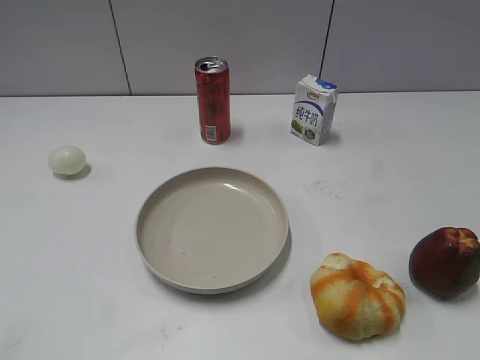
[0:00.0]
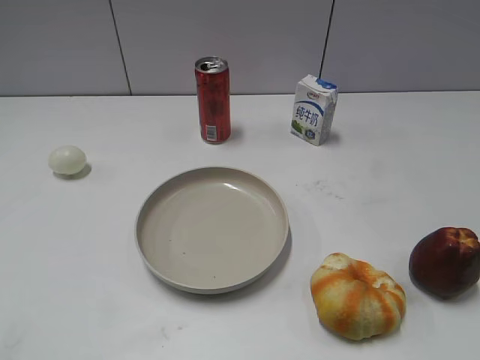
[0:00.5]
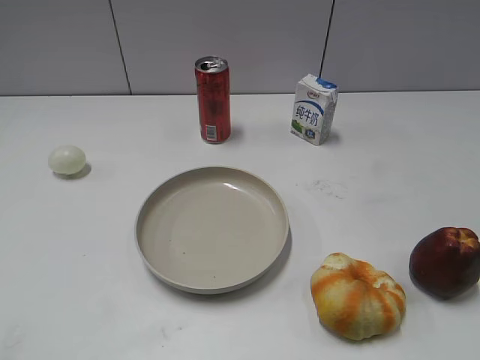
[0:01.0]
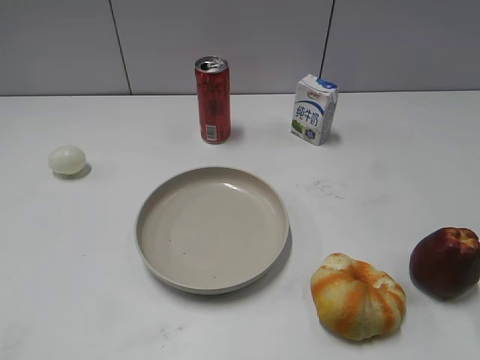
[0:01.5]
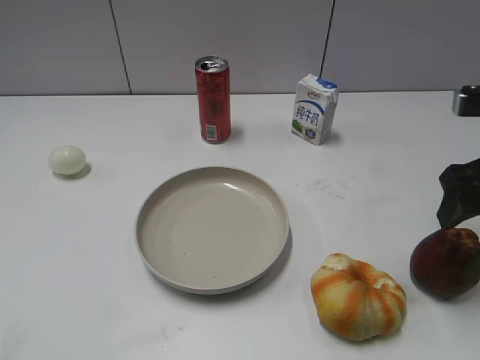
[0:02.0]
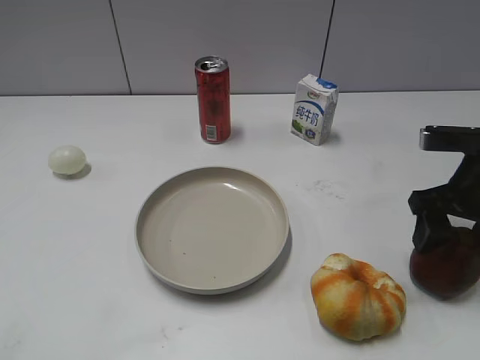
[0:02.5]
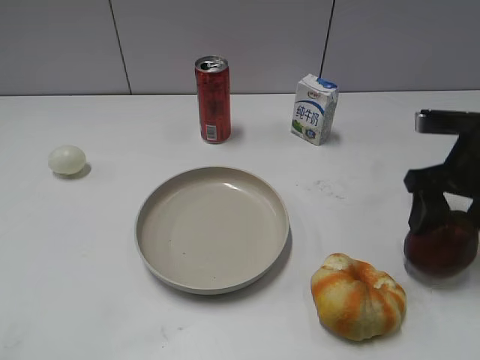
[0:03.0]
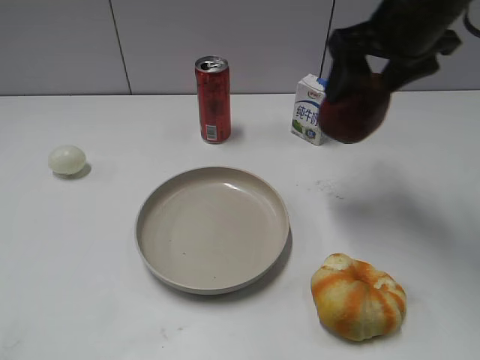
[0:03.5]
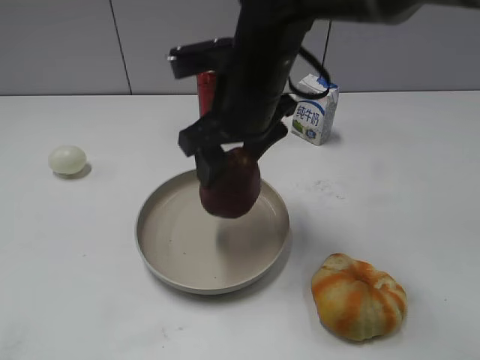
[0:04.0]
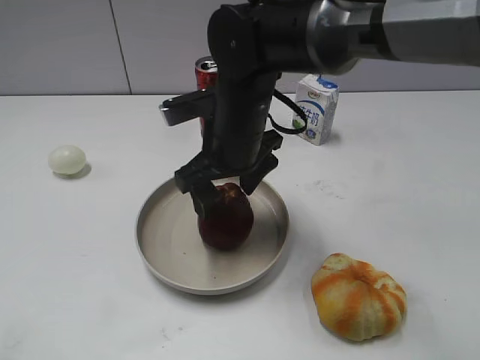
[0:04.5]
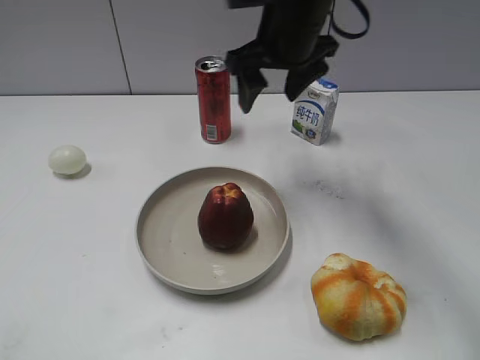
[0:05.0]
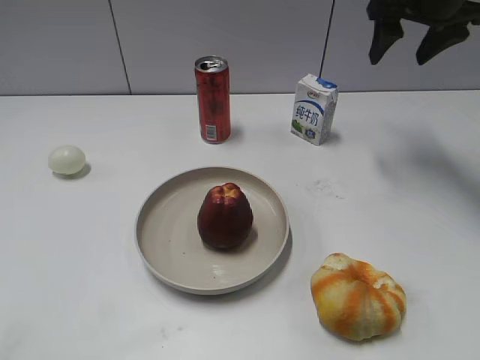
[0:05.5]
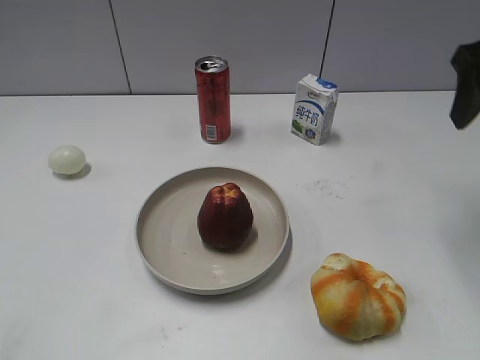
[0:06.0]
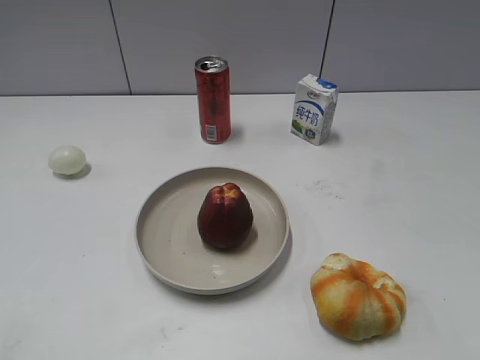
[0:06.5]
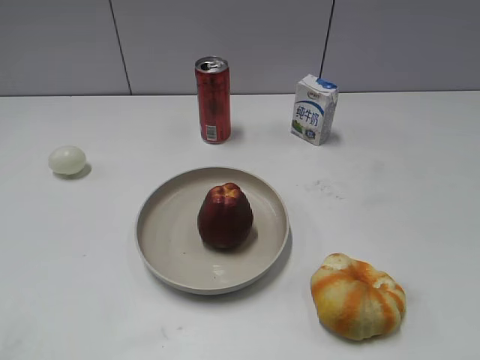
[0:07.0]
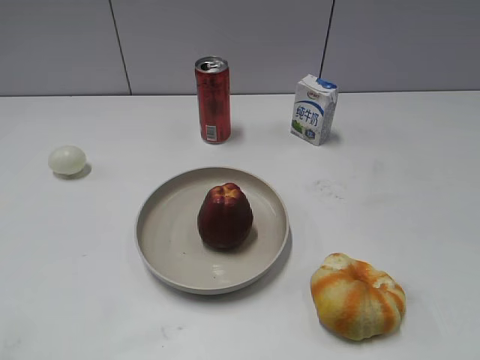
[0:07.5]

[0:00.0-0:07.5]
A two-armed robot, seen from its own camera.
Step, 0:01.0 to 0:02.5: Grasp the apple with right gripper.
Step, 0:03.0 to 0:04.5: Place the apple on the plate with right gripper.
0:02.0 to 0:04.0: The right gripper shifts about 25 cm to the left.
0:04.0 to 0:05.5: The right gripper moves to the right and forward, about 25 cm.
0:05.5 to 0:07.5: The right gripper heads backward, covering about 40 cm.

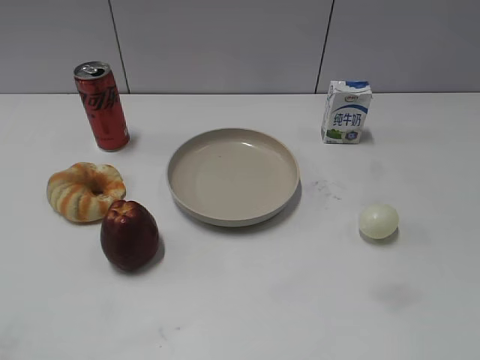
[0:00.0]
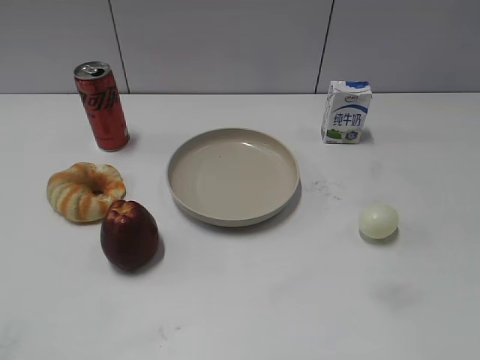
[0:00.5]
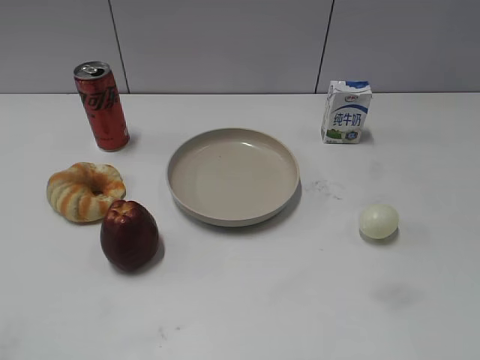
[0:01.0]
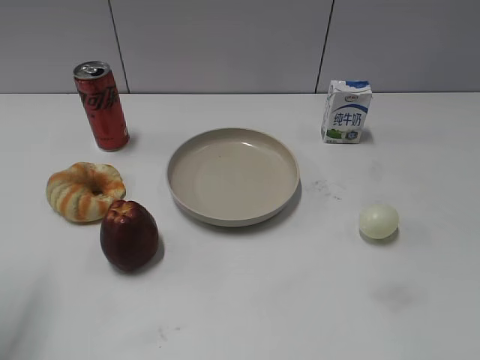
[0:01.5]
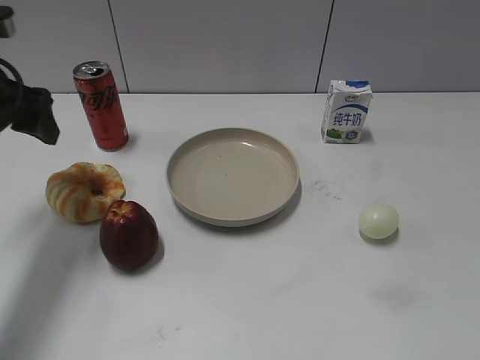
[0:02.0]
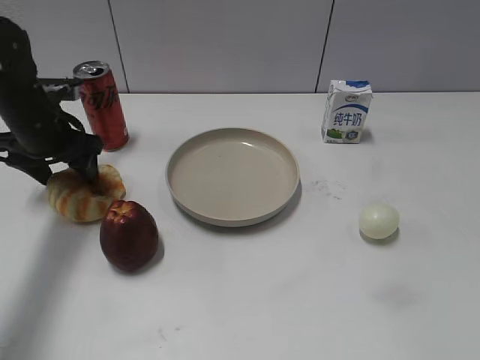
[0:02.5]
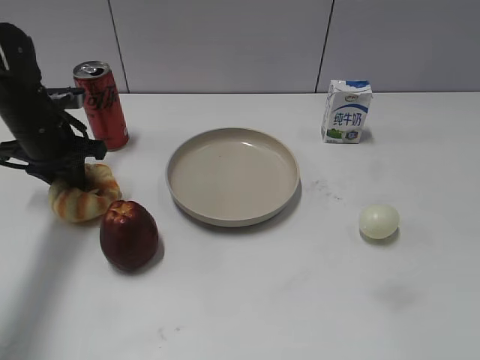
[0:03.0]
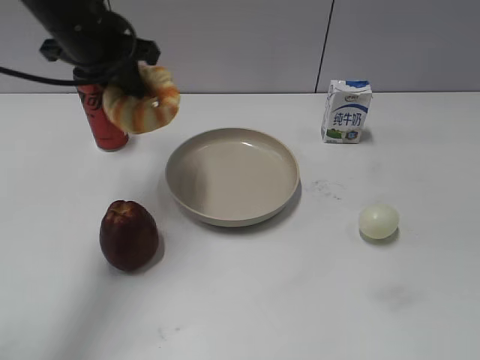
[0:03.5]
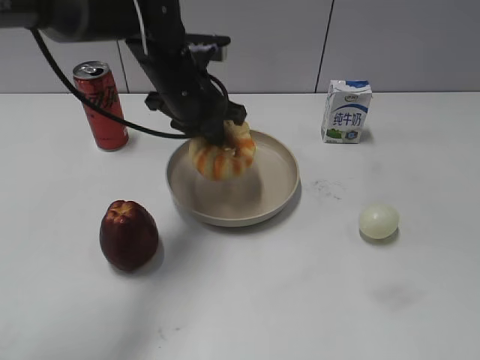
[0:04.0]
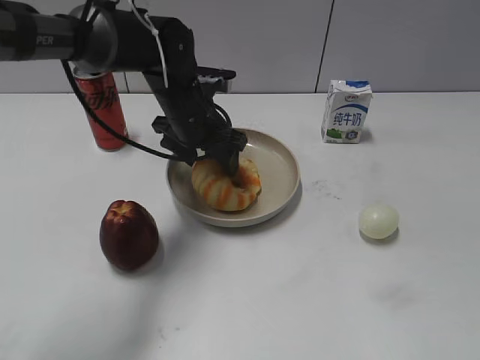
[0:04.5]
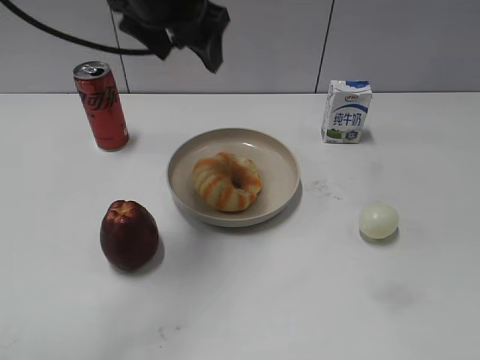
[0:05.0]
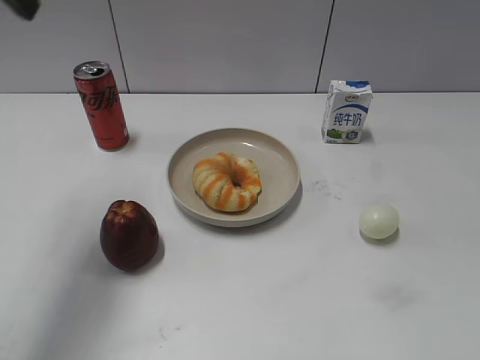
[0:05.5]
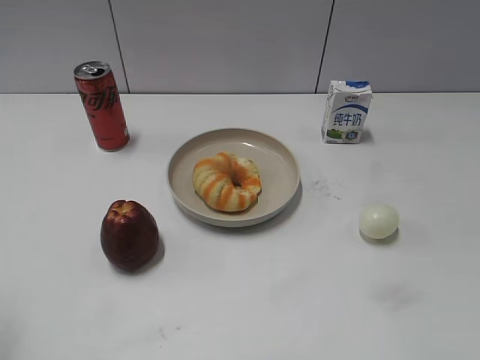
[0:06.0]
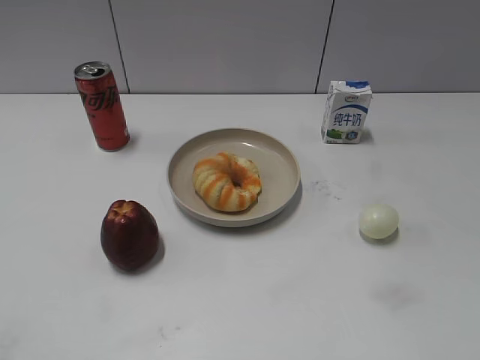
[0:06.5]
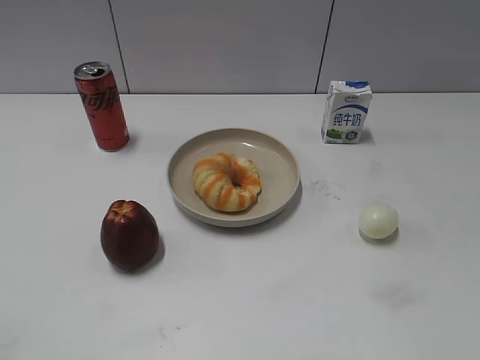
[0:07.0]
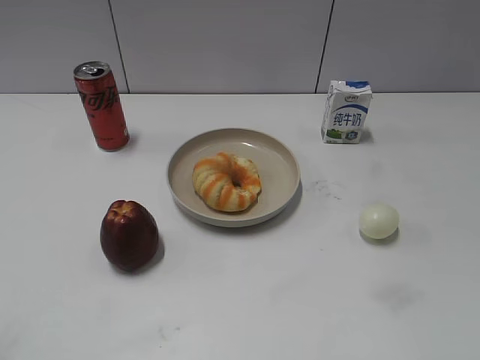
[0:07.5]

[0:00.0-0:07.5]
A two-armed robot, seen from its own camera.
Step, 0:01.0 to 0:02.5: Grasp the round bread with left gripper.
Step, 0:03.0 to 0:04.5: Place the round bread on the plate with left gripper.
0:02.0 to 0:04.0: The left gripper travels to the right by roughly 20 cm, and closes up.
0:04.0 to 0:05.5: The left gripper heads upward, to the left and backward, covering about 25 cm, and opens its fingers.
0:05.5 to 0:07.5: The left gripper travels backward by some 30 cm.

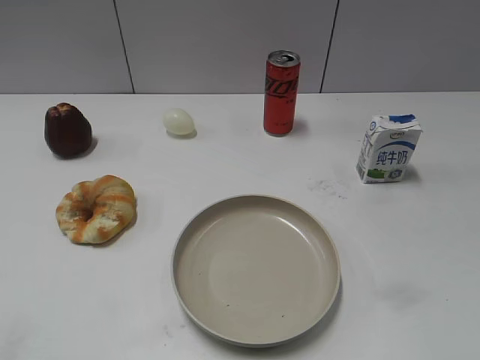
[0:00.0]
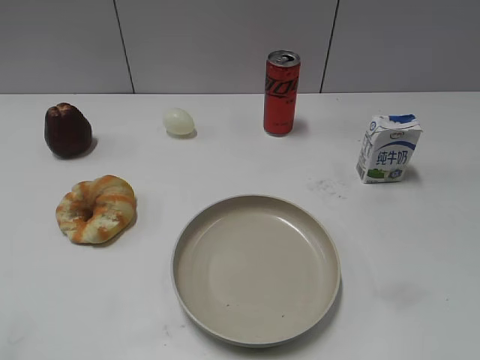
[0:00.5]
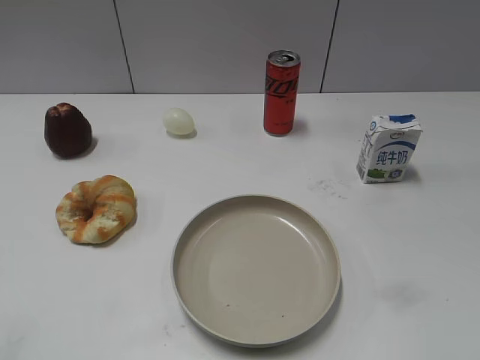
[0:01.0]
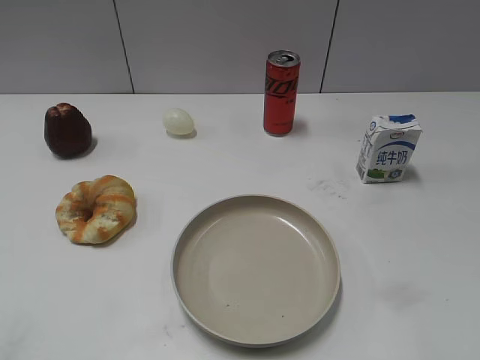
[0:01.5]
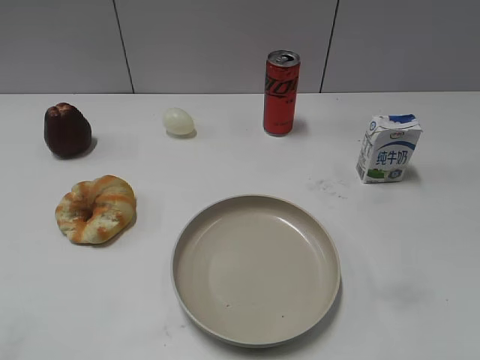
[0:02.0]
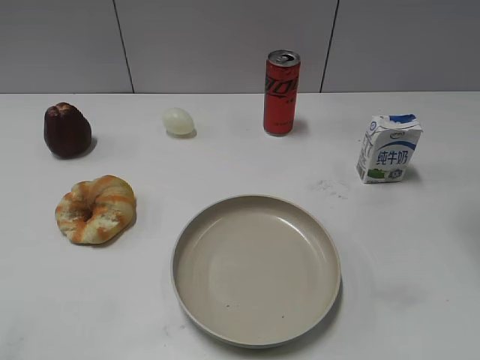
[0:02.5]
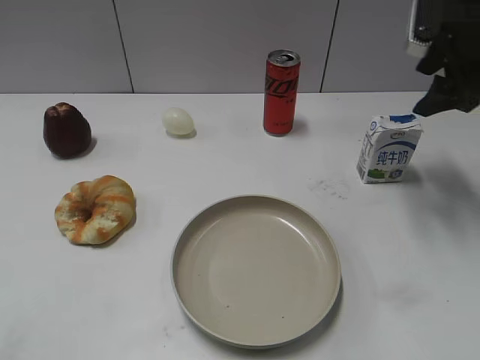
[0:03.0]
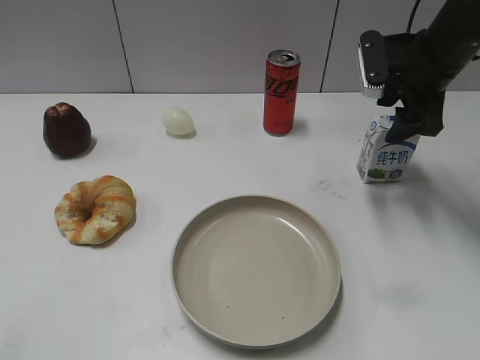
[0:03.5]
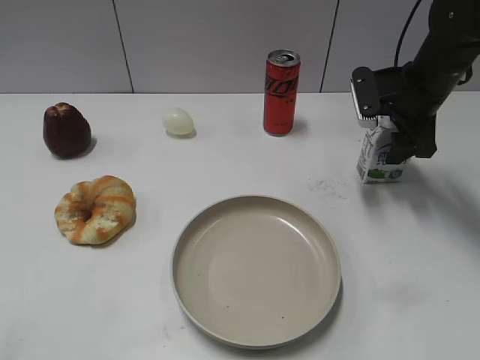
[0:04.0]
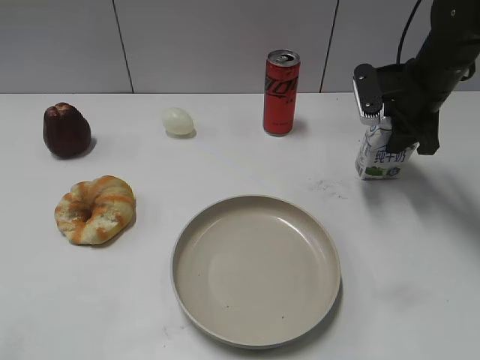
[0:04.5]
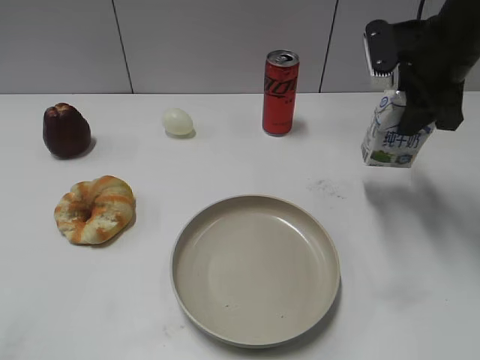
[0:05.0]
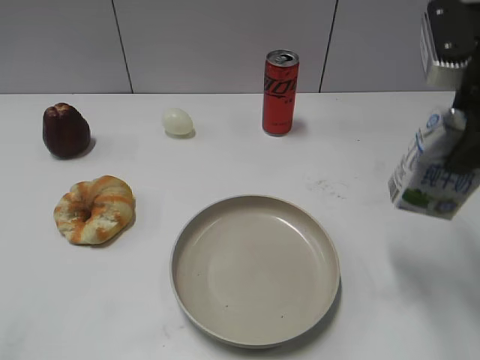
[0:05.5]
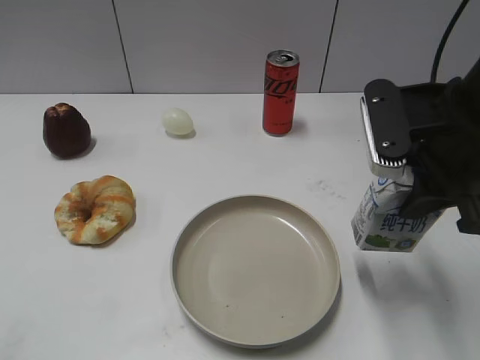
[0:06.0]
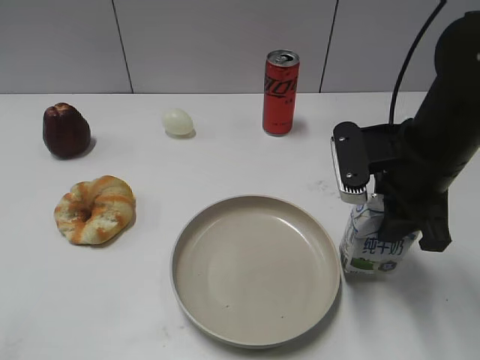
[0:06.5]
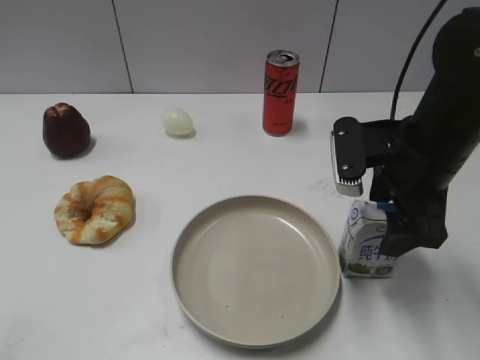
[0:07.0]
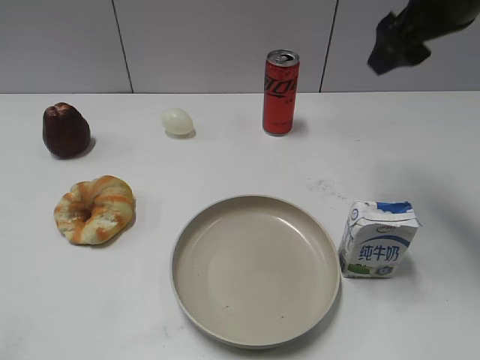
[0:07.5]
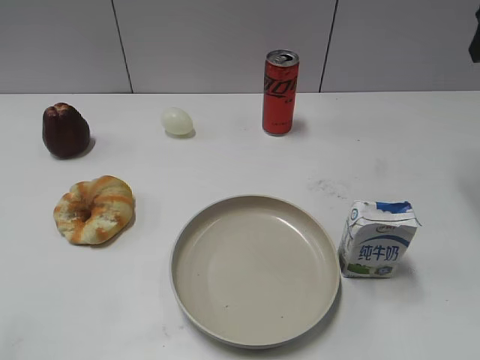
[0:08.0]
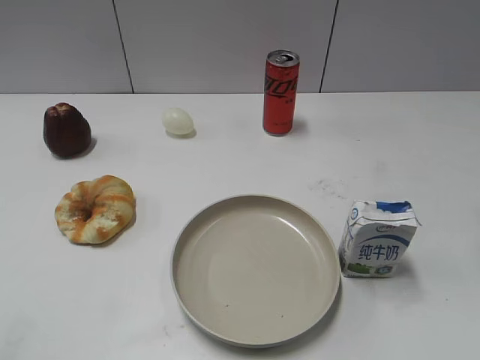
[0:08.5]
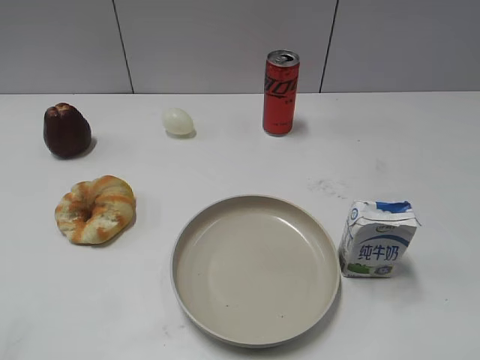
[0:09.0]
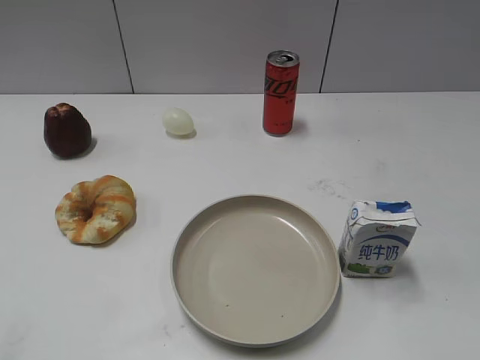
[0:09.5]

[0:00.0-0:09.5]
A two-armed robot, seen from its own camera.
Step, 0:01.5 to 0:04.5: Grasp the milk with right gripper.
Step, 0:05.0 to 0:06.5: Place the milk on the table with right gripper.
0:02.0 to 0:04.0: The right gripper moves forward and downward, about 30 cm.
0:04.0 to 0:05.5: The right gripper heads backward and upward, covering some 20 cm, and closes.
0:05.5 to 0:07.5: The right gripper travels forward by about 10 cm, reaches some 10 cm downward, then returns, and opens.
0:07.5 to 0:09.5: The right gripper shifts about 30 cm backward.
